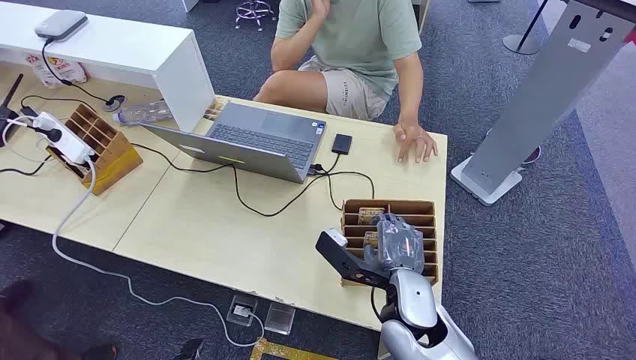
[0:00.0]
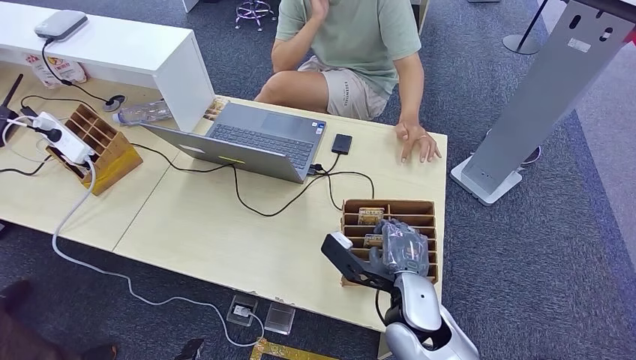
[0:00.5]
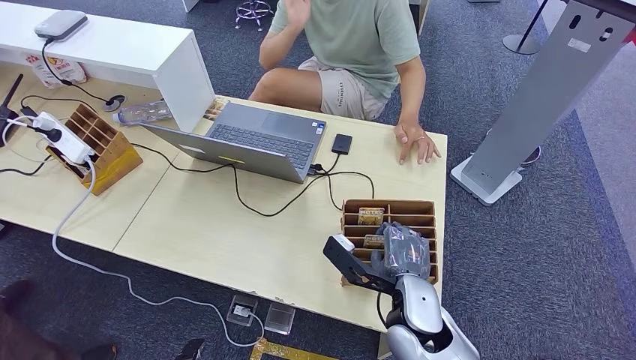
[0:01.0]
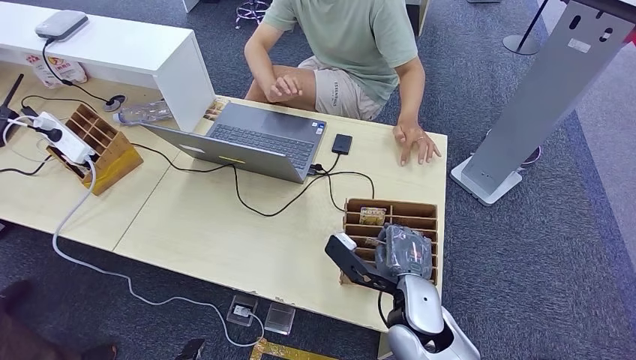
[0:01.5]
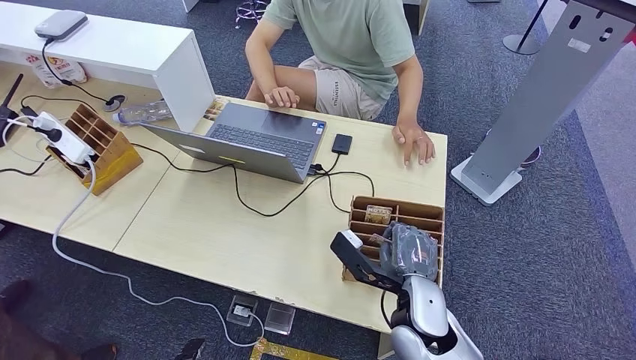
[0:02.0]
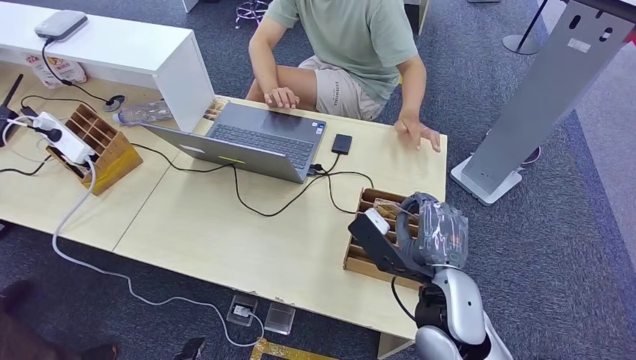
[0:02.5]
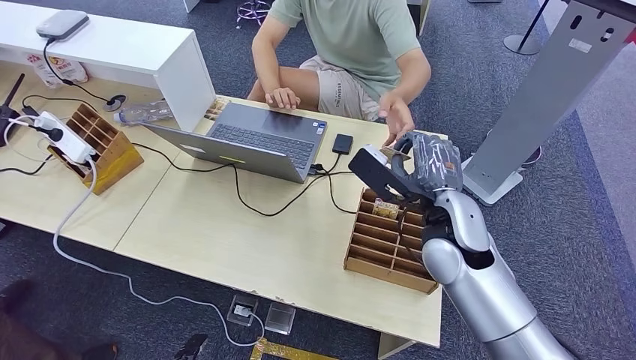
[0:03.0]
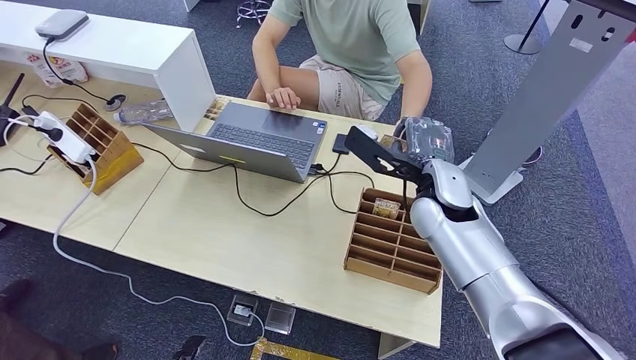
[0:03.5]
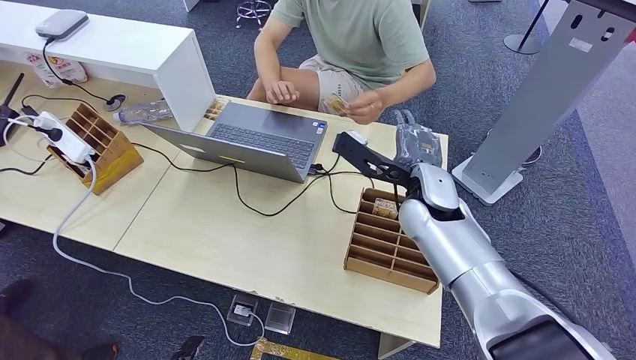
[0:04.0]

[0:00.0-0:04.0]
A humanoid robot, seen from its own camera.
Step, 0:00.0 to 0:02.0: Pick up the room card from the card holder.
Step, 0:03.5 to 0:04.0: Hand the room card to the target.
0:02.0 to 0:04.0: The right hand heads forward and upward, covering approximately 20 cm.

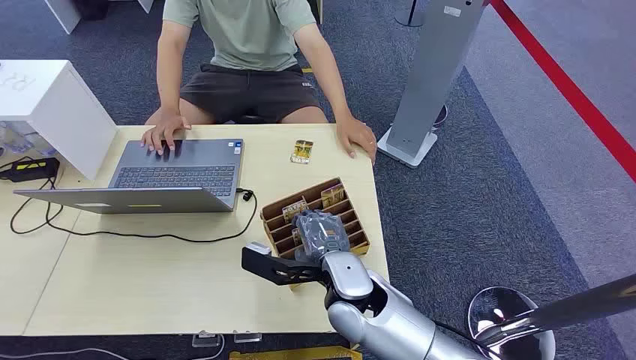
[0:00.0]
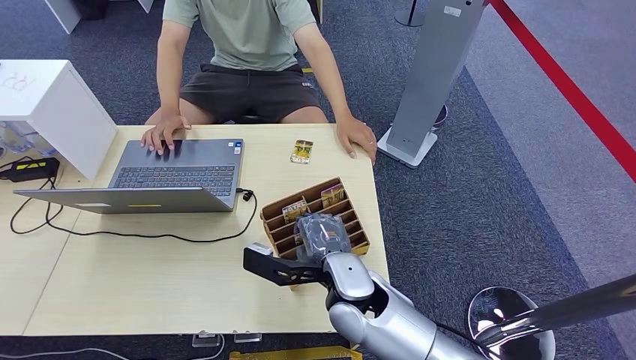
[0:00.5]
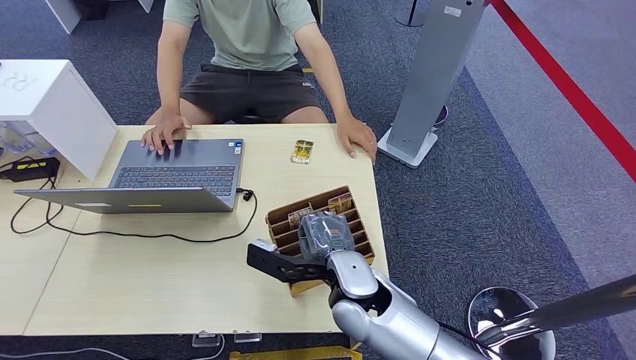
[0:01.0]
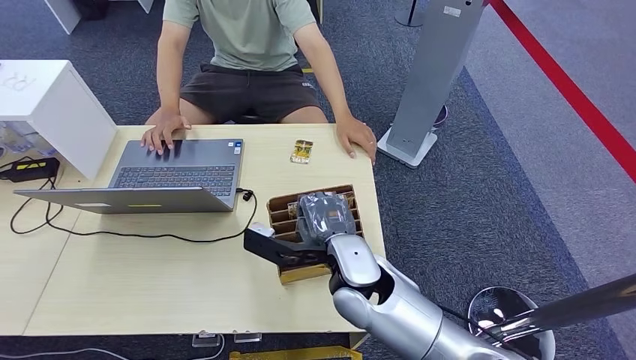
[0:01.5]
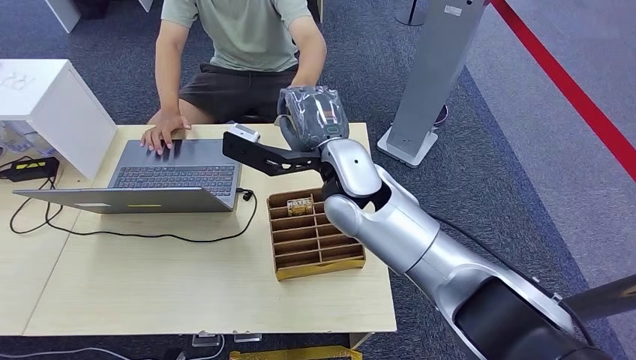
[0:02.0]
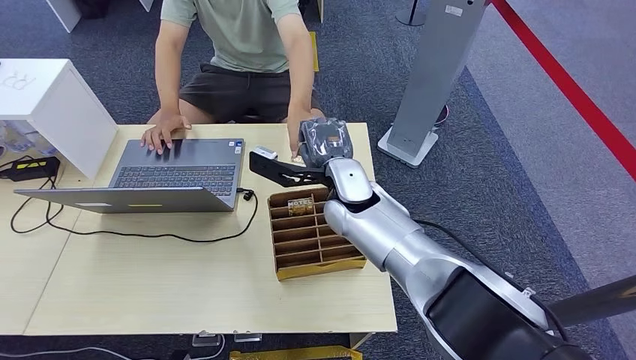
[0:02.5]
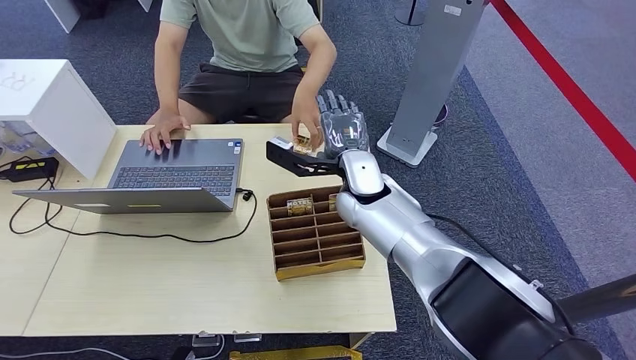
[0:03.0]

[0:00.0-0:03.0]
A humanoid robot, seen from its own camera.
Step, 0:00.0 to 0:01.5: Pick up the room card from the card holder.
Step, 0:02.0 to 0:03.0: Hand the room card to the target.
0:01.5 to 0:03.0: The right hand is displaced forward by some 15 cm.

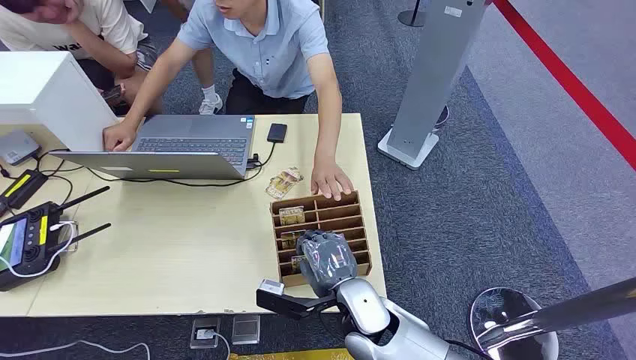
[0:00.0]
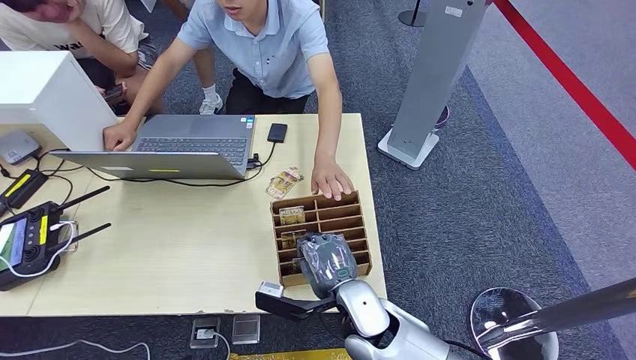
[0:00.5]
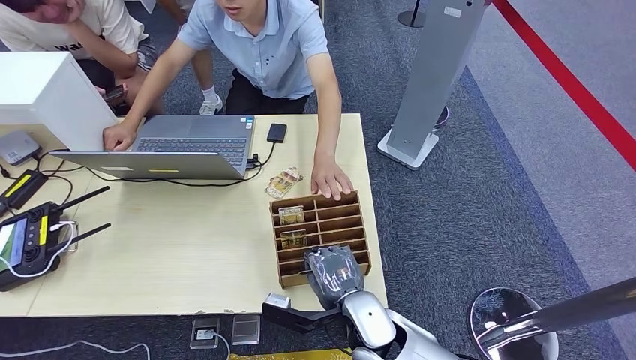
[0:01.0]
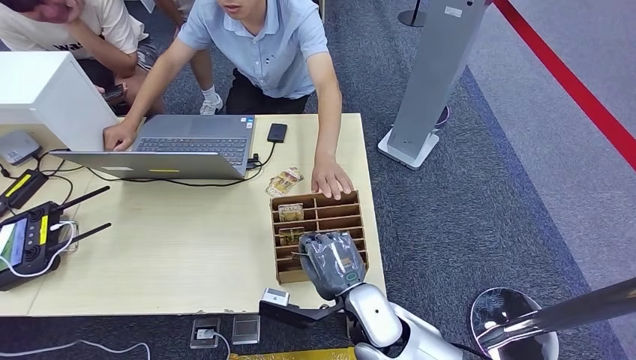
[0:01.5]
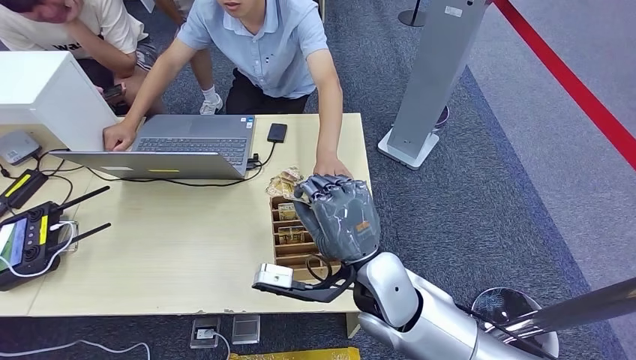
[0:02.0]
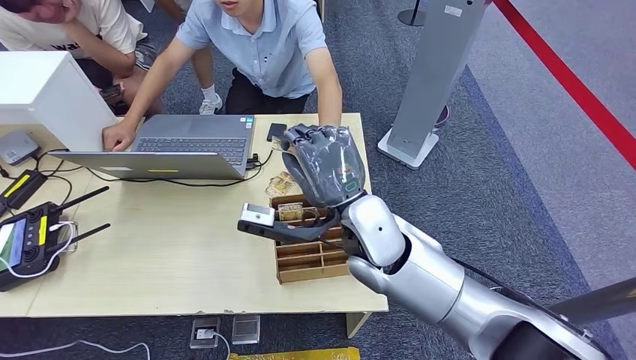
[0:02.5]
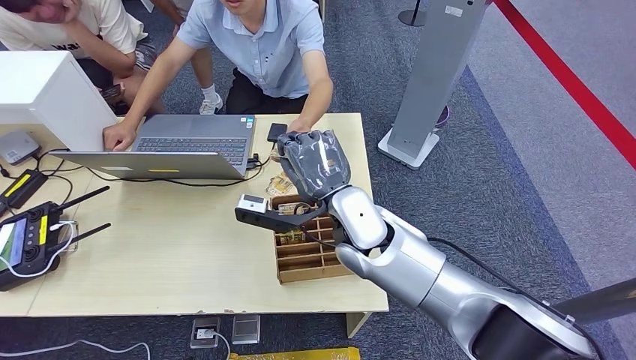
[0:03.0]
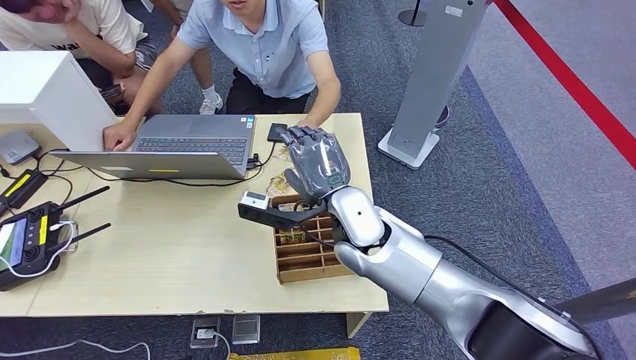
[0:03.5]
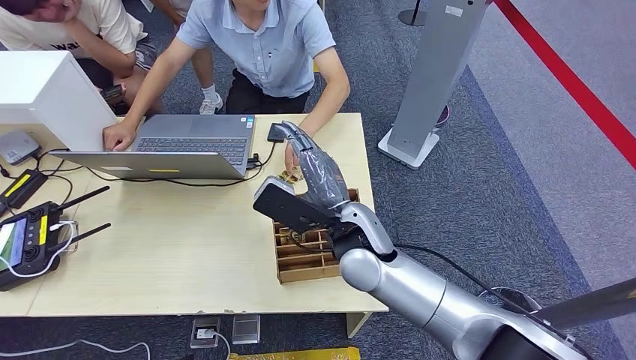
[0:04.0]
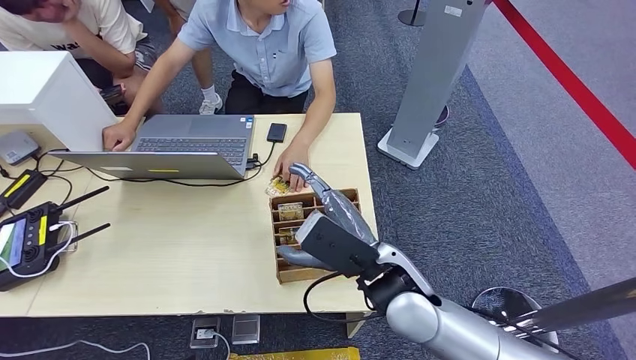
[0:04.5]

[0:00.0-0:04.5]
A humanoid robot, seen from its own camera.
Step, 0:00.0 to 0:01.5: Pick up the room card from the card holder.
Step, 0:02.5 to 0:04.5: Hand the room card to the target.
0:02.0 to 0:04.5: The right hand travels forward and back again, approximately 10 cm each way.
